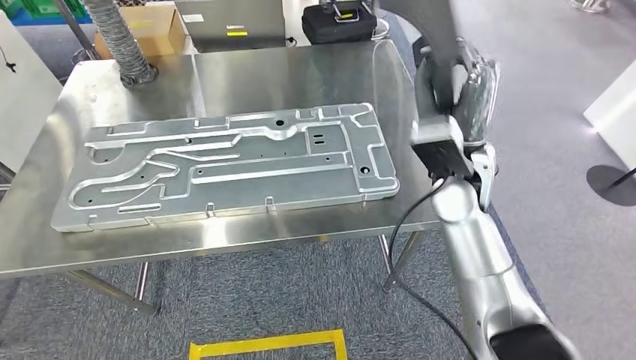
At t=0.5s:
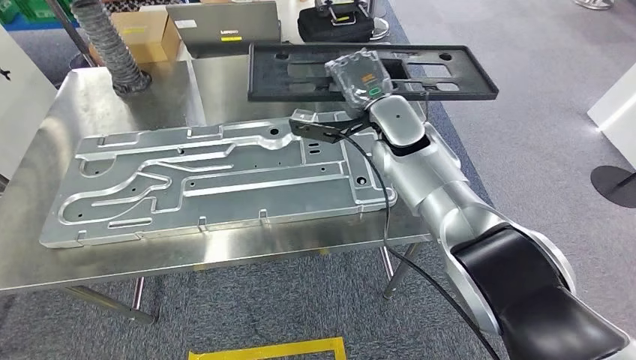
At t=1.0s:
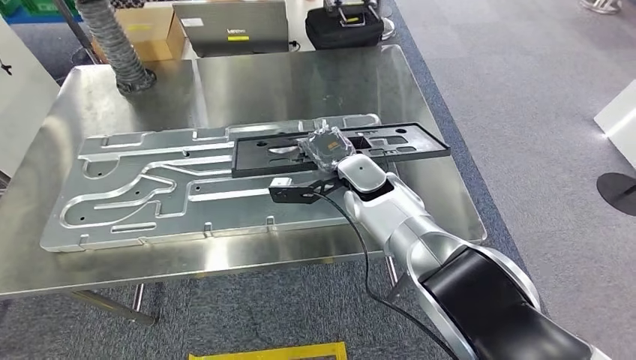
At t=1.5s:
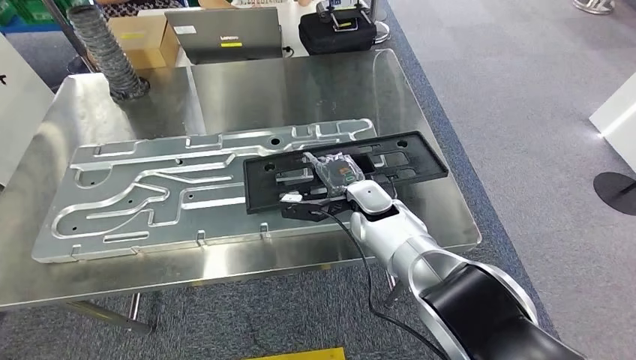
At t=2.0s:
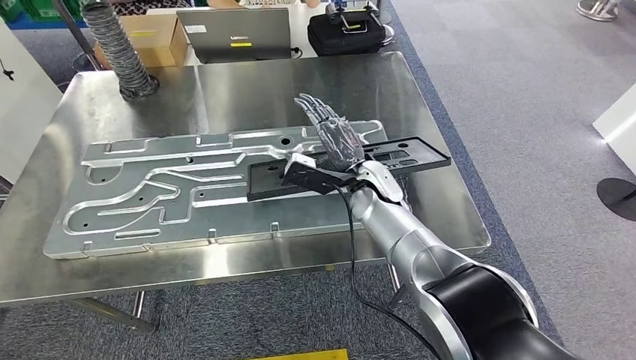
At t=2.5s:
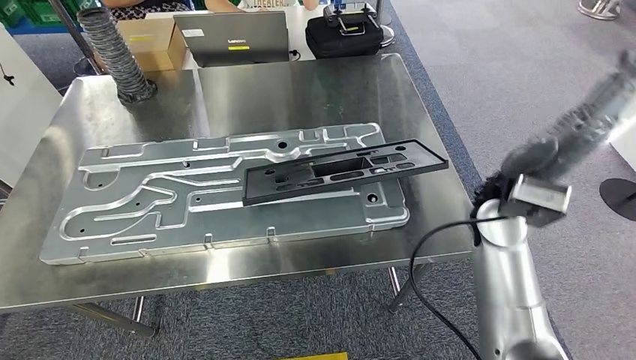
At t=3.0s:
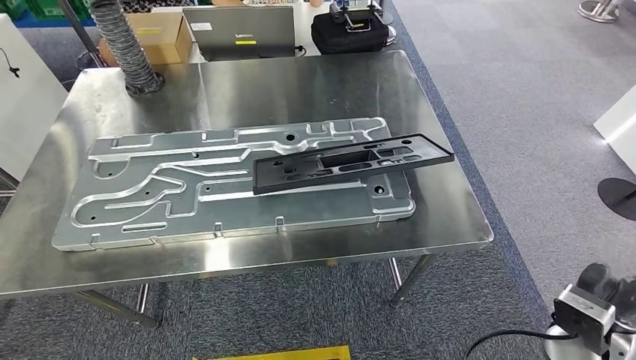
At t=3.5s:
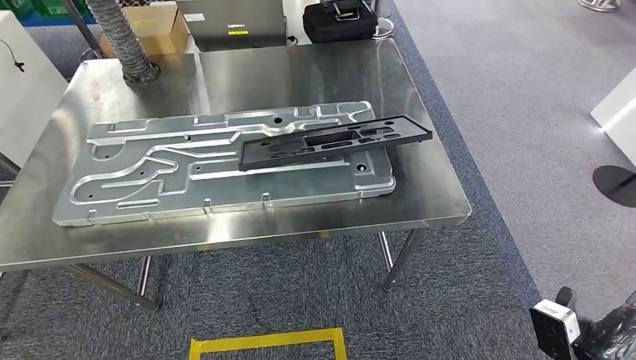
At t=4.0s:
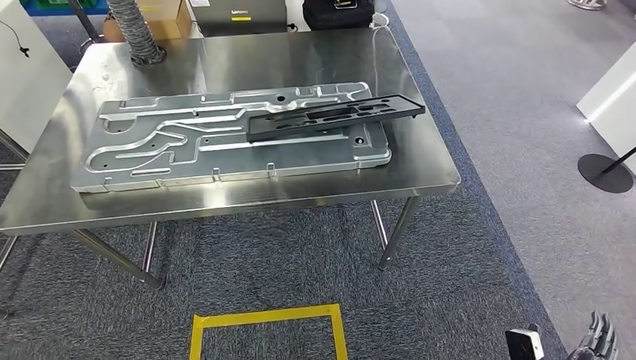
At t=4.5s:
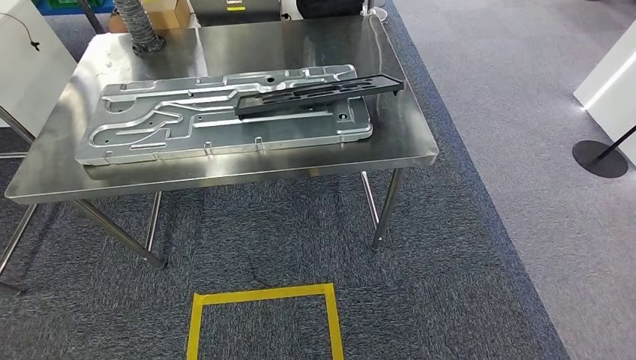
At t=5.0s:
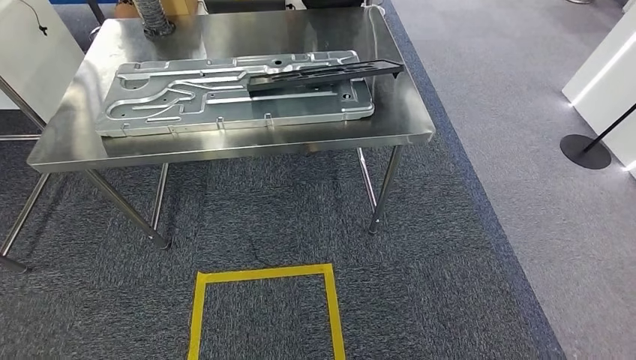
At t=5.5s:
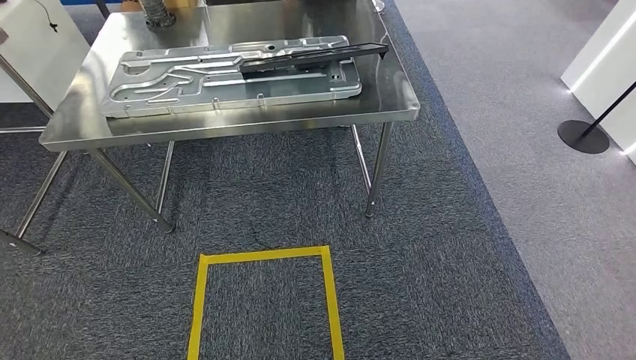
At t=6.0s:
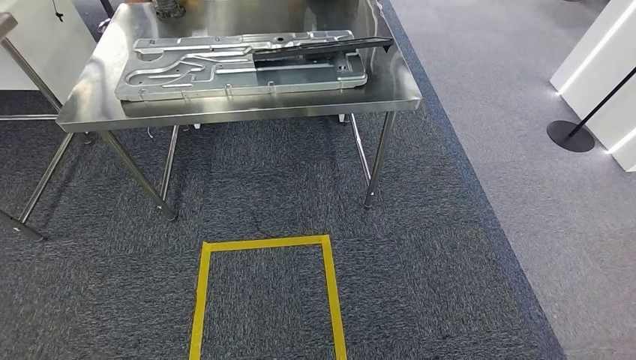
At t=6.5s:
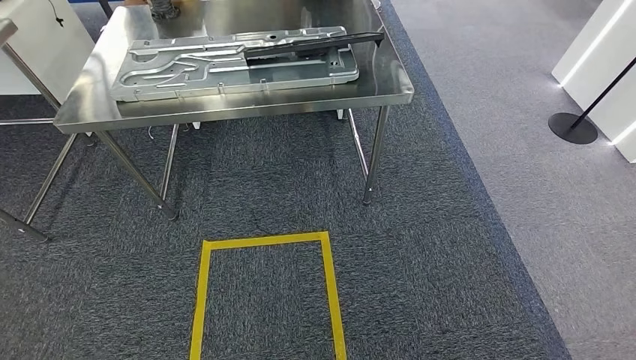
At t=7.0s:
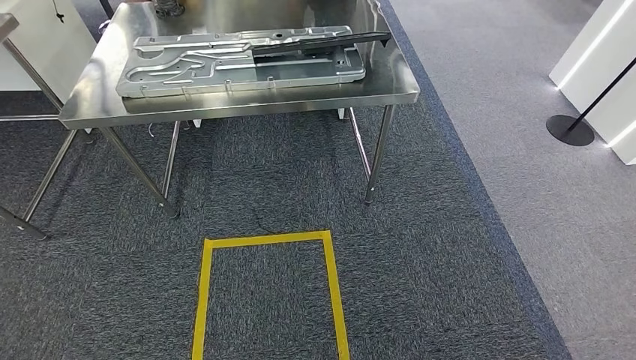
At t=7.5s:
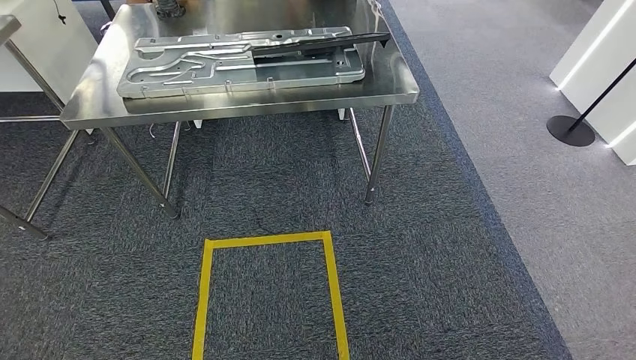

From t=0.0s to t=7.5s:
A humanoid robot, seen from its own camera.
Step, from t=0.0s to t=2.0s: Insert the large material into the corresponding hole on the workbench.
Step, from t=3.0s to t=7.5s: Move to the initial position of the shelf.
From t=5.5s to t=7.5s: There are only small adjustments of the hands.
